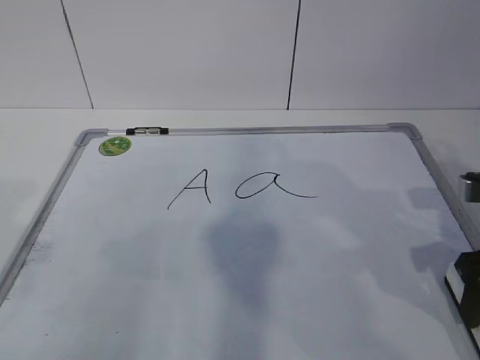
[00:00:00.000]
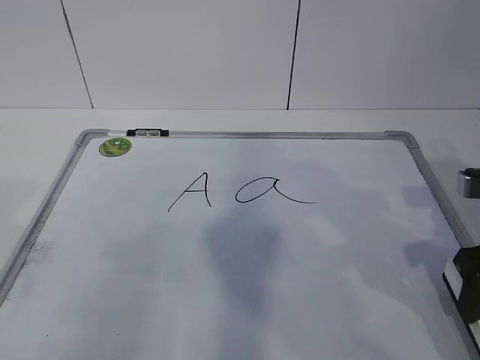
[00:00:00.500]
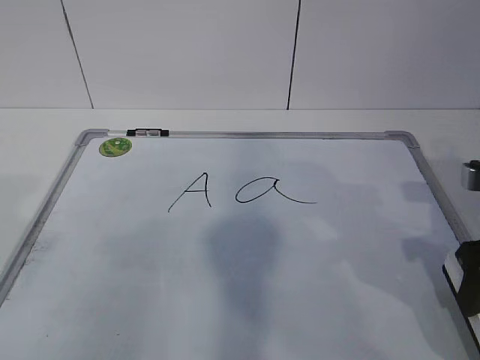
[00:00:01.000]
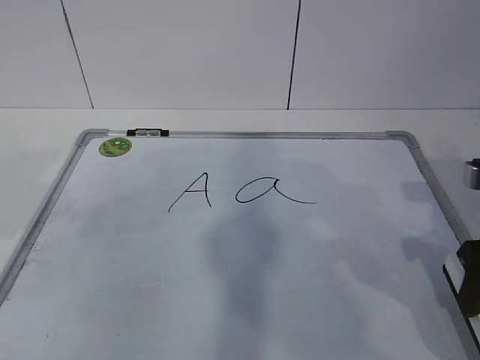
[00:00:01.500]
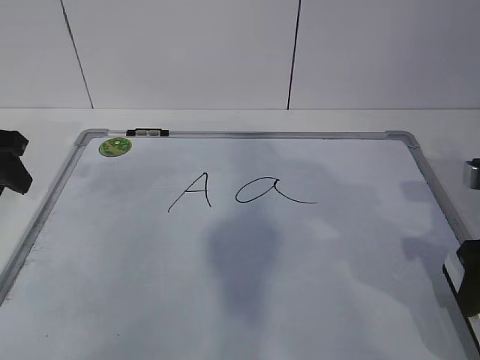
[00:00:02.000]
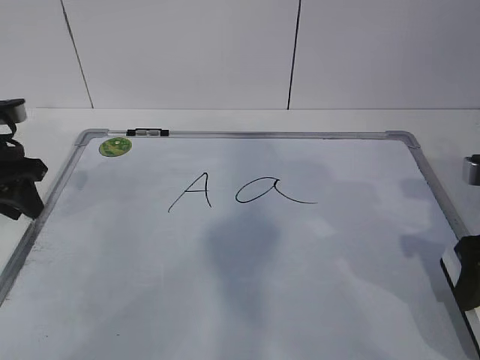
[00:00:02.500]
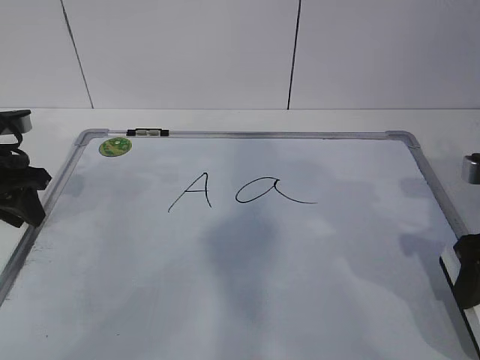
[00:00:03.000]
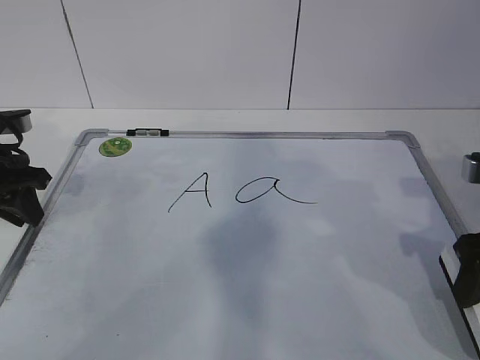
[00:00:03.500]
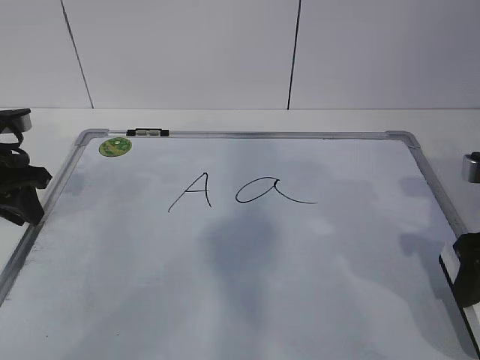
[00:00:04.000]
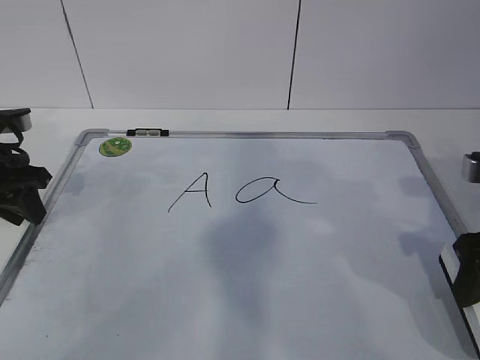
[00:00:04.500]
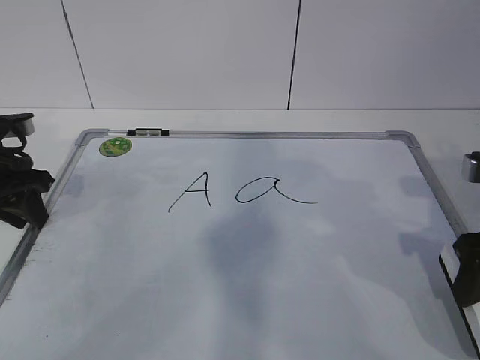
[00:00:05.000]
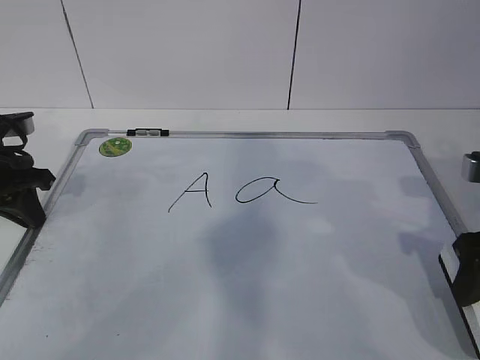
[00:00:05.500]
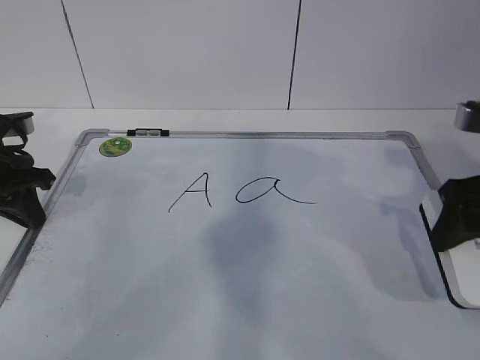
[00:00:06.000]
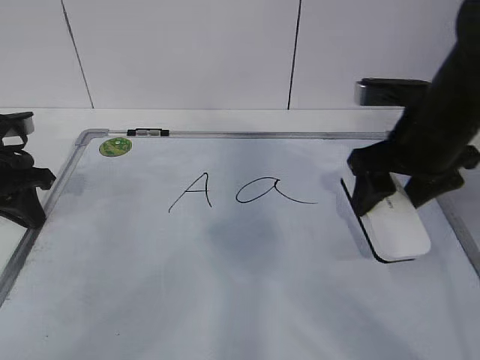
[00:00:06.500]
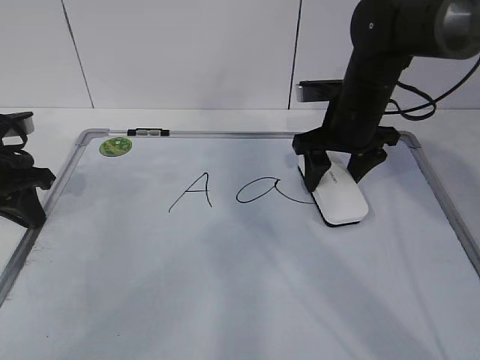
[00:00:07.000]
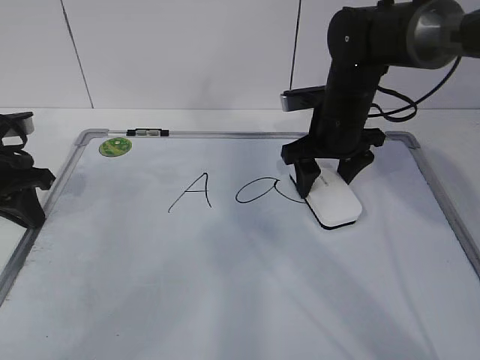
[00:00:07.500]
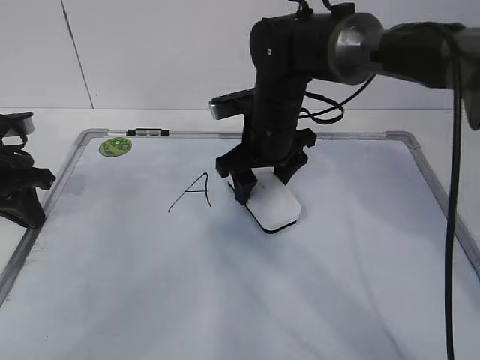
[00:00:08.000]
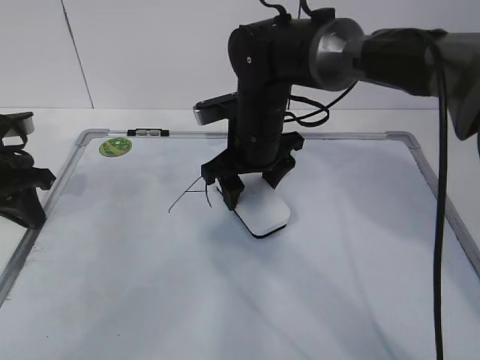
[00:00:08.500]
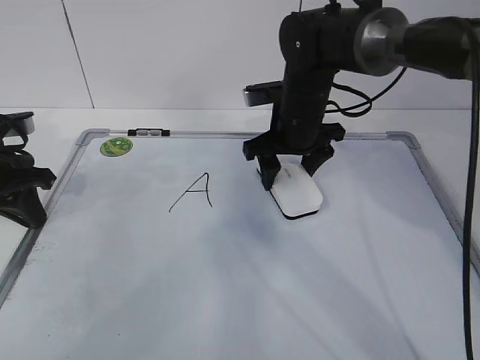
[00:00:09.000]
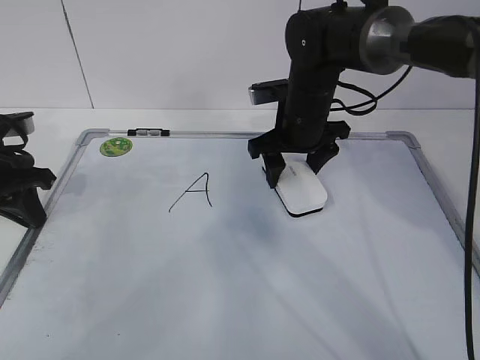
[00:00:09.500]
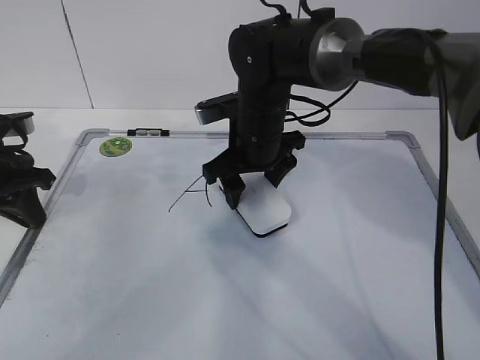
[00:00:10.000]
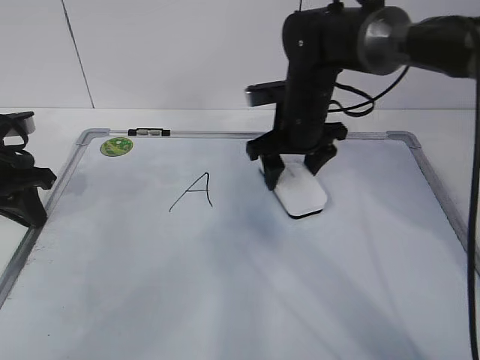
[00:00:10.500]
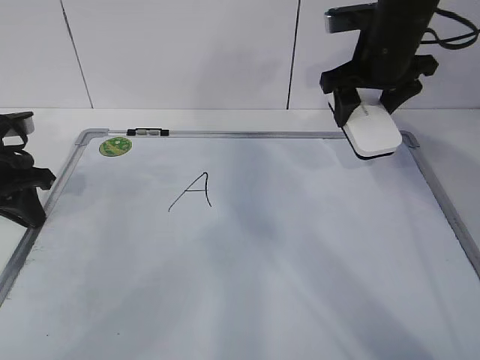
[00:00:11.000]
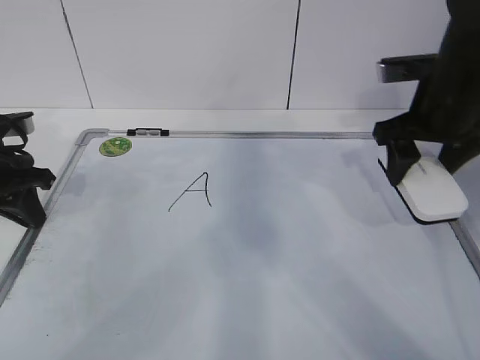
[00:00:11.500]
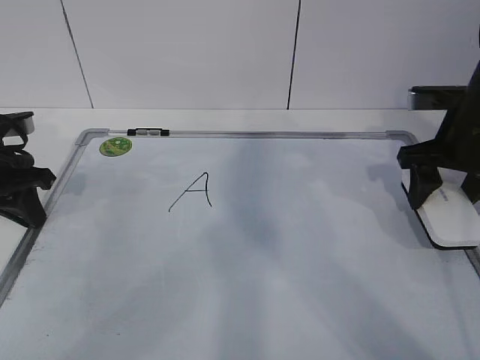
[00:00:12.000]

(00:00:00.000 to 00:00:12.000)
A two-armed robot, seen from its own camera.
Task of the whole recording: pick up the eraser on the blackboard and erase the letter "a".
Step, 00:00:00.000 - 00:00:02.000: Hold the drawing board steady with your left hand.
Step, 00:00:02.500 - 00:00:06.500: Erase the letter a with your right hand.
Step, 00:00:07.000 - 00:00:08.500: Put down the eraser with your right hand.
00:00:00.000 - 00:00:02.000: The left gripper shifts some 25 cm forward.
00:00:02.000 - 00:00:04.000: The left gripper heads downward, covering roughly 5 cm, and closes its fingers.
00:00:04.000 - 00:00:06.000: The grippers move only a little.
00:00:06.000 - 00:00:08.000: The right gripper heads to the left and forward, covering about 25 cm.
00:00:10.000 - 00:00:12.000: The right gripper moves to the right, approximately 25 cm.

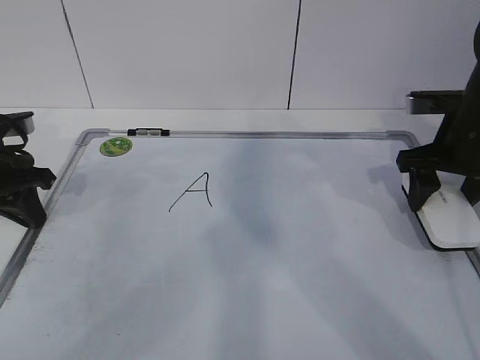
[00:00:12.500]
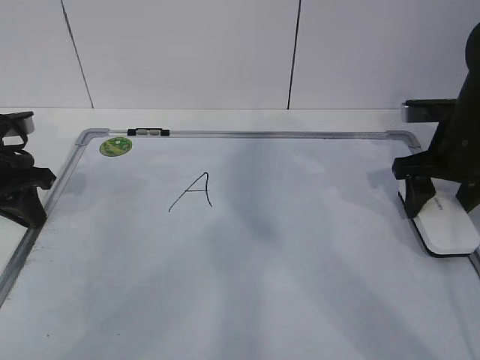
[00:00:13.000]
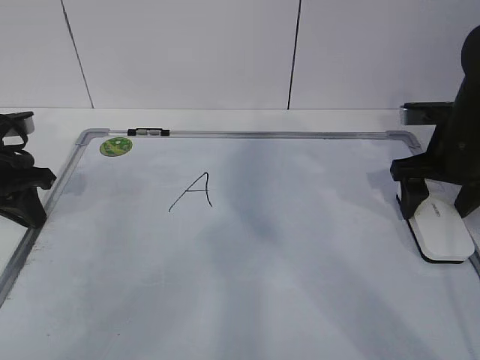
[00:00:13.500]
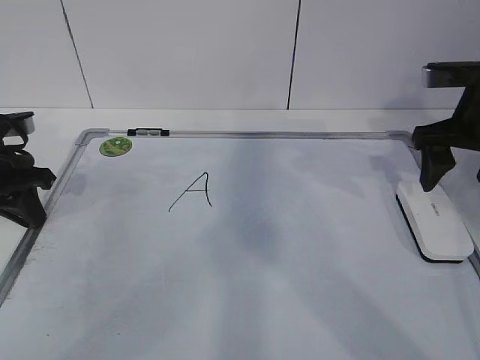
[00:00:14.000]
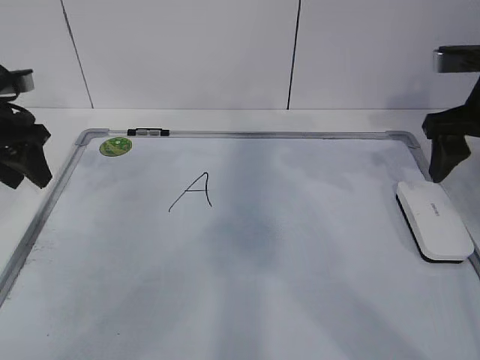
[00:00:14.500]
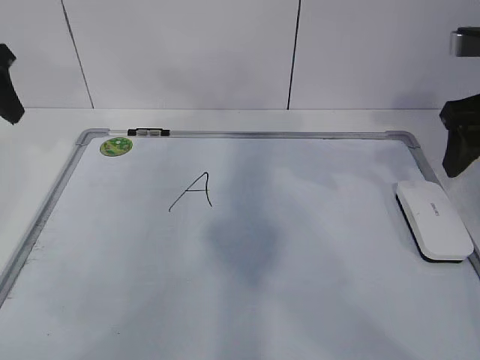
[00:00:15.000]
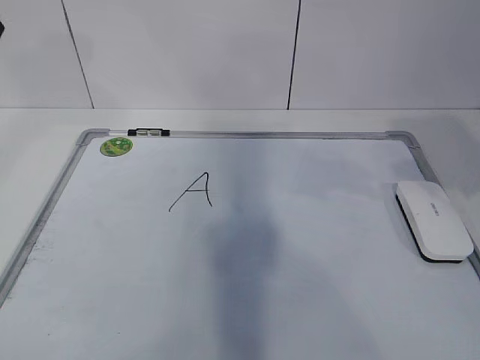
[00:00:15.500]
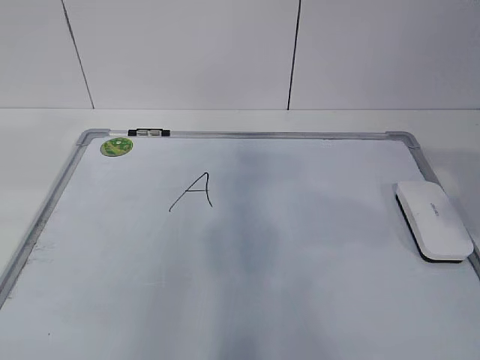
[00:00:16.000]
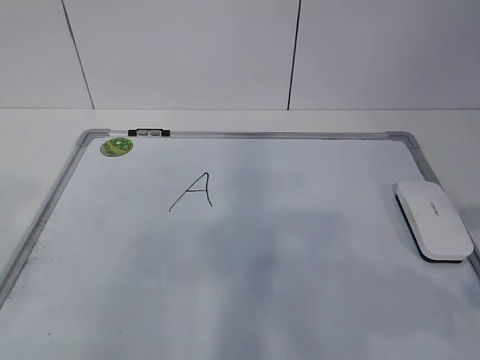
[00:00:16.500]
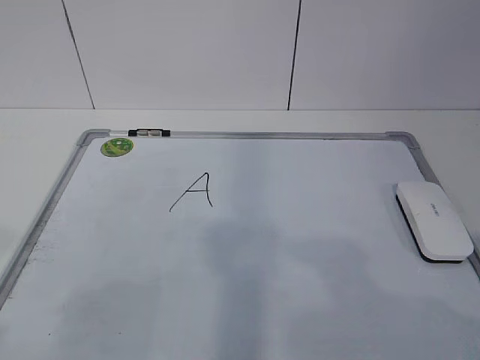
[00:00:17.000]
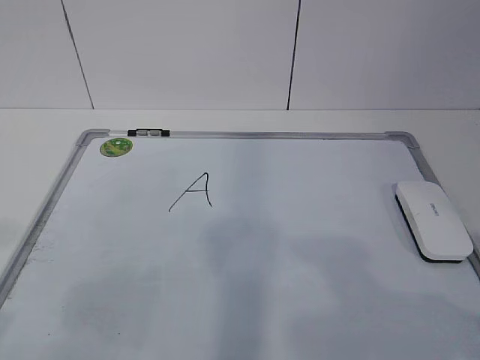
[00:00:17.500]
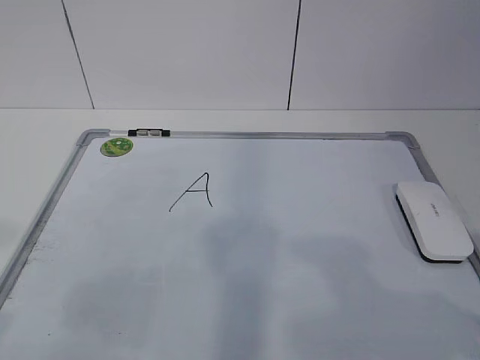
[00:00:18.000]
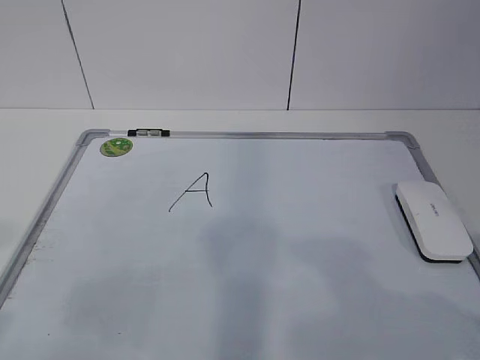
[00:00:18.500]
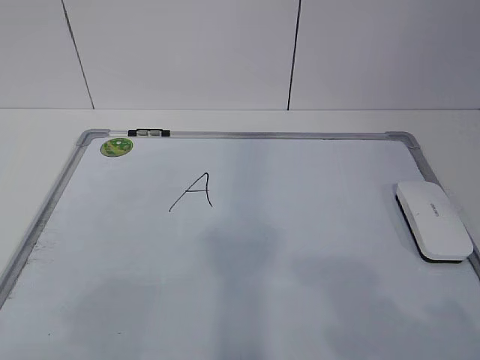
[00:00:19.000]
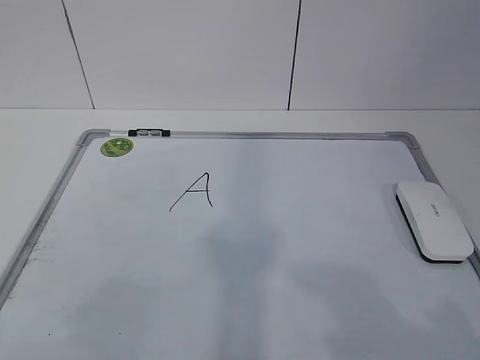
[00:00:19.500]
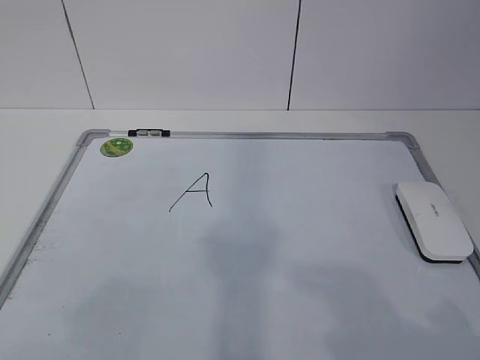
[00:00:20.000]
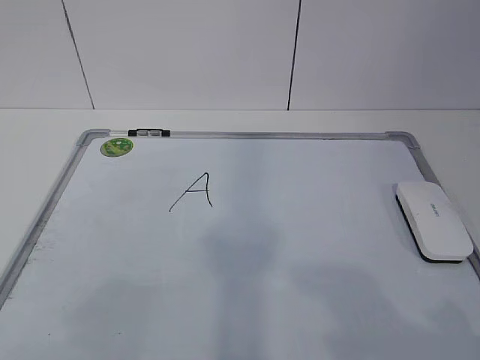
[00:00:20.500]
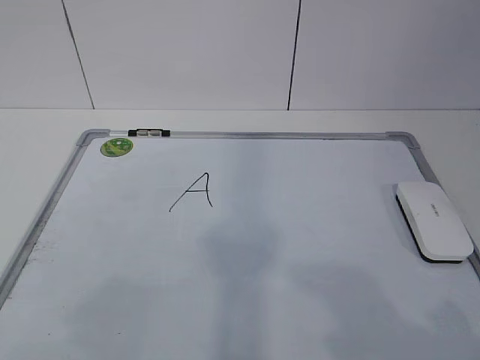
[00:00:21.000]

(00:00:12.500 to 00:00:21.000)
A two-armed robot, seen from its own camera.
Task of the whole recording: pick up the eraser on the blackboard and erase the letter "a".
00:00:12.500 - 00:00:14.500: Both grippers move upward, about 5 cm. The left gripper opens. The right gripper opens its fingers.
00:00:14.500 - 00:00:16.500: The grippers both shift backward by roughly 30 cm. The right gripper closes up.
00:00:19.000 - 00:00:21.000: The two grippers keep their place.
